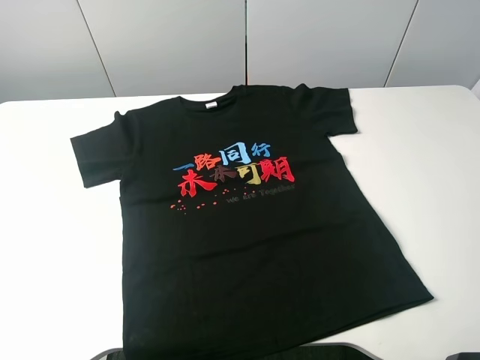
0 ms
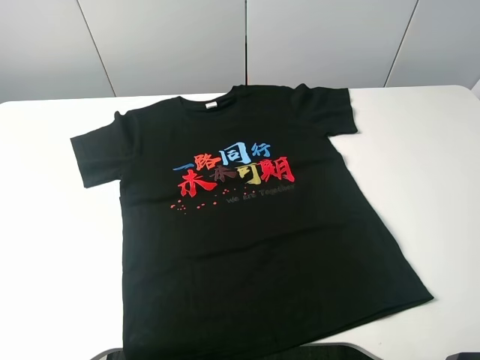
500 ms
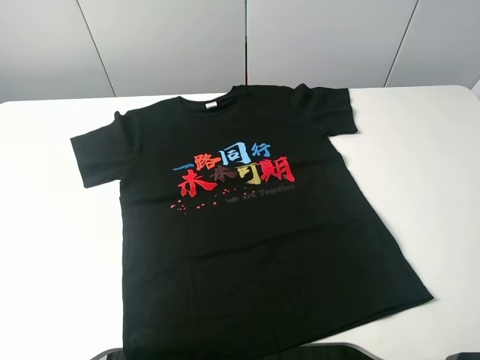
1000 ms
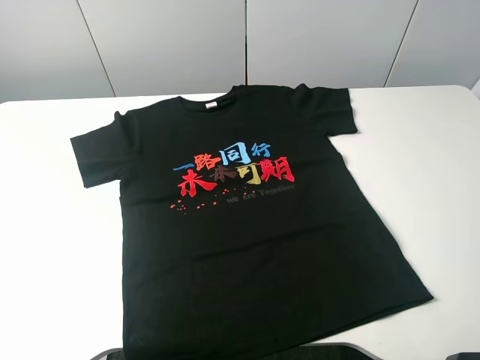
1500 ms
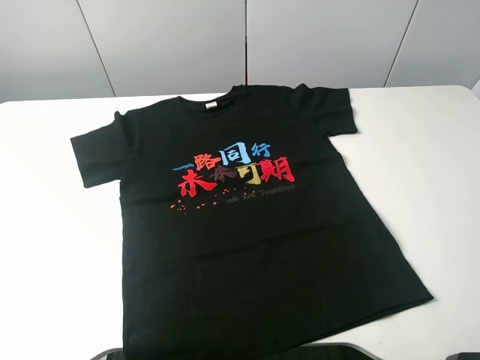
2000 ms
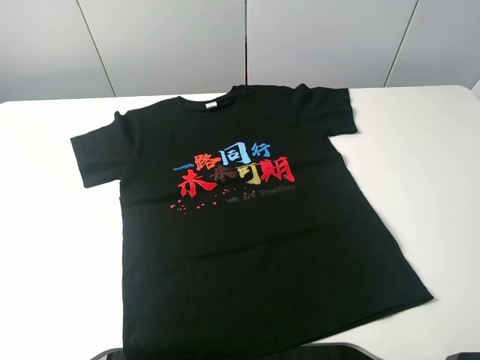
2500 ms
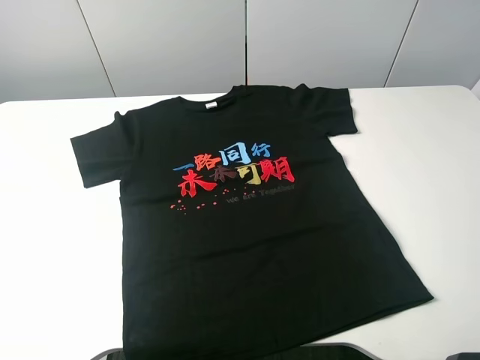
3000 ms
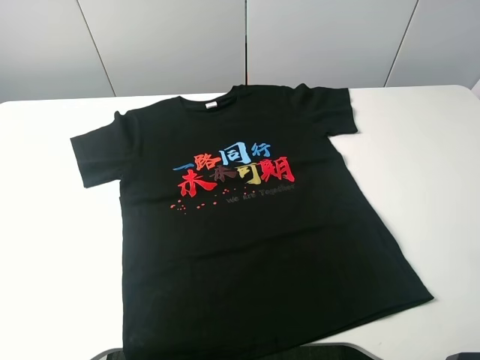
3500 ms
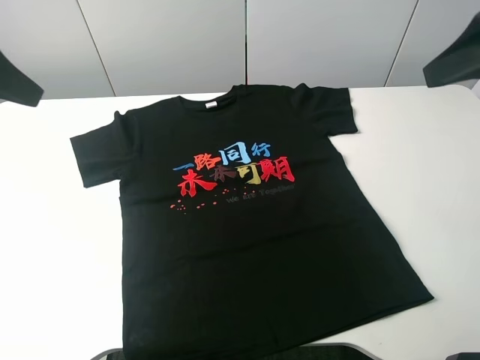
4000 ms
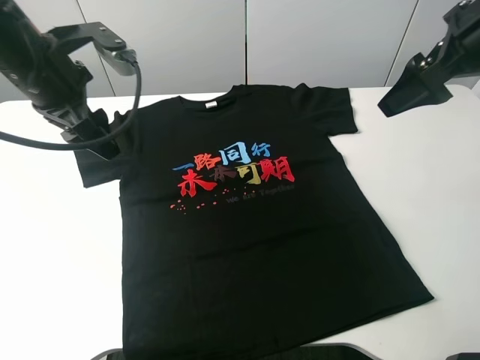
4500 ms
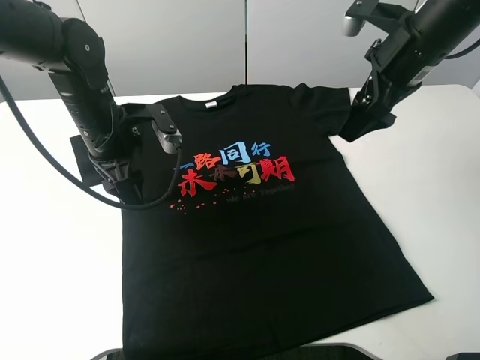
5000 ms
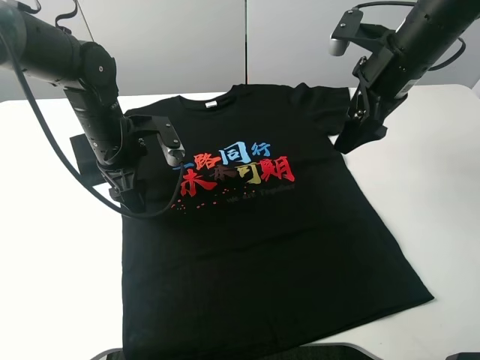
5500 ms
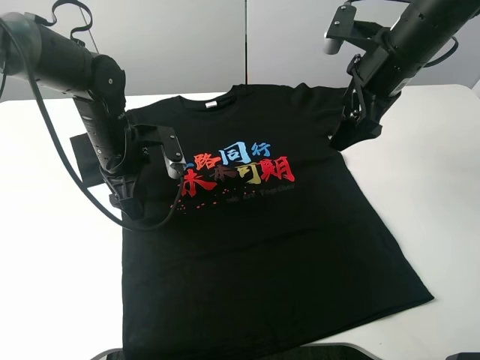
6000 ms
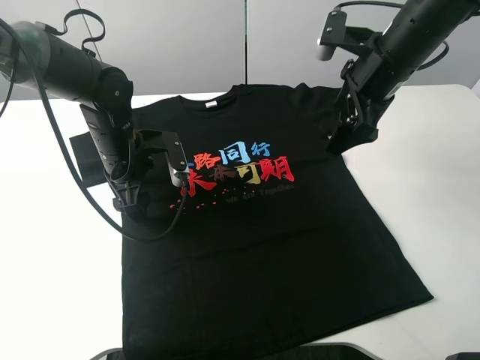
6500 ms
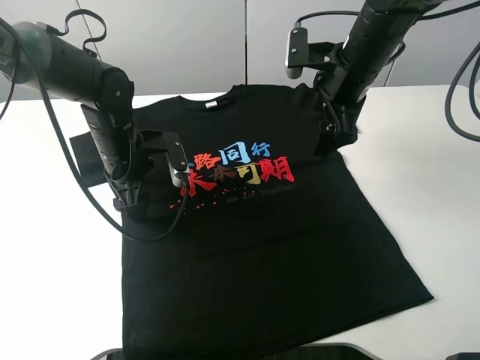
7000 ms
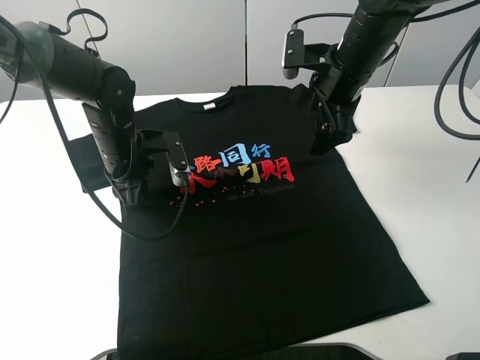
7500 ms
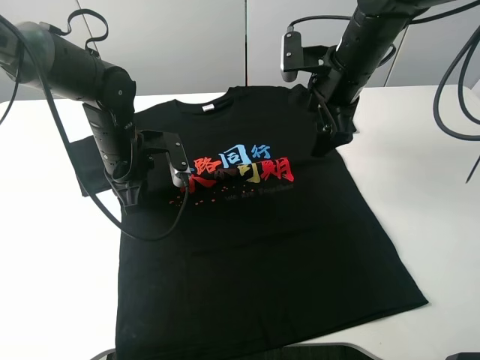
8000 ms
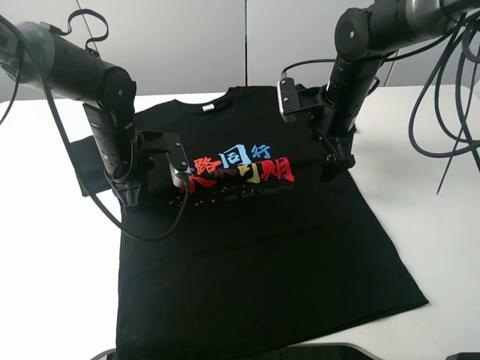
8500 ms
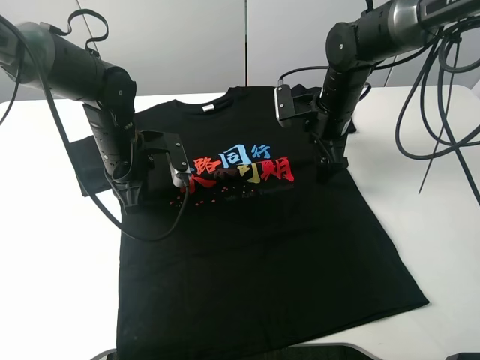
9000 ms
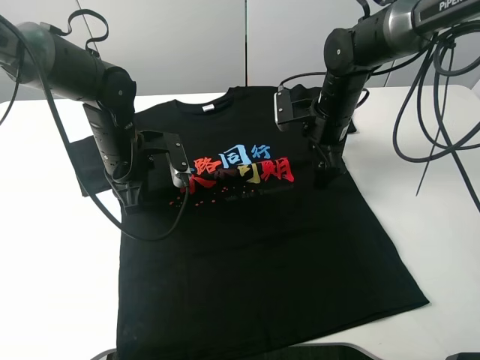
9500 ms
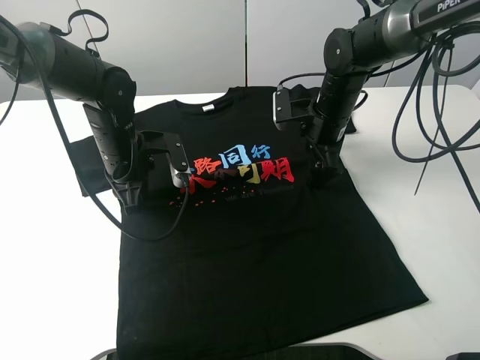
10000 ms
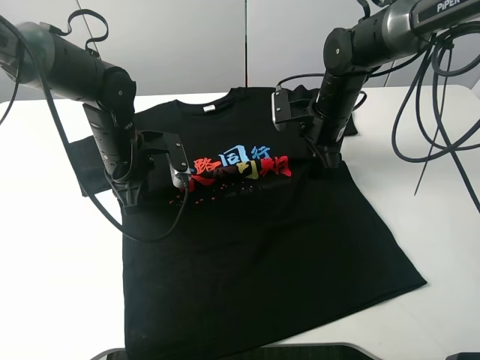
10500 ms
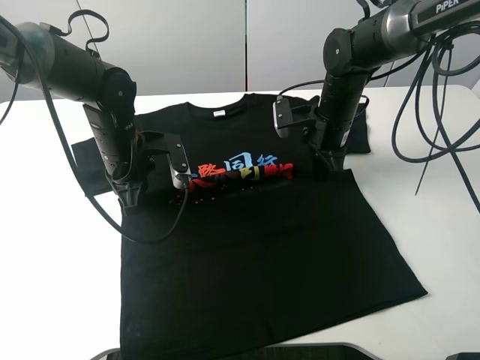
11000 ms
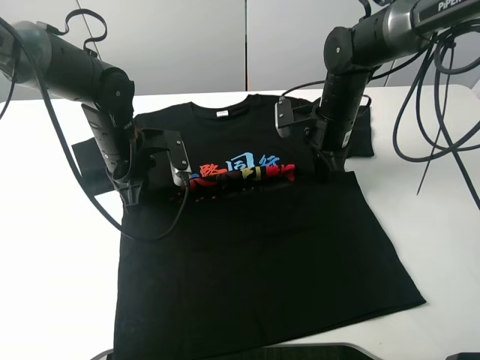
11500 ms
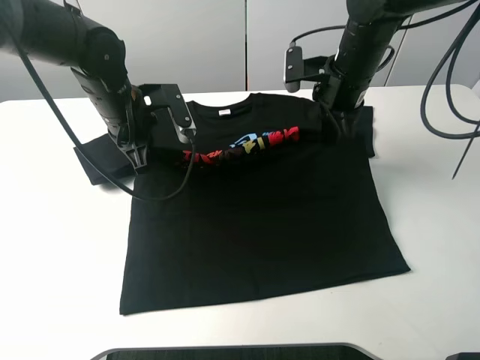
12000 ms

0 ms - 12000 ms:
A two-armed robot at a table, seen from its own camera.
Task of the whole recording: fold the clothes on the table.
Step, 0 ms - 10500 ms: Lift the black T-shirt with the left gripper.
0 ms - 2000 ms: Both grippers stay put.
2000 ms - 4000 ms: The grippers both shift forward by approximately 25 cm.
4000 ms - 6000 ms: The left gripper is displaced downward and to the right by roughly 25 cm. Meanwhile the right gripper goes some 20 cm forward, downward and to the left.
6000 ms - 8000 ms: The left gripper closes its fingers; the right gripper ends up approximately 5 cm from where it was.
8000 ms - 10000 ms: The right gripper heads downward, covering approximately 10 cm.
10000 ms - 12000 ms: Both grippers travel together upward, roughly 10 cm. The right gripper closes up.

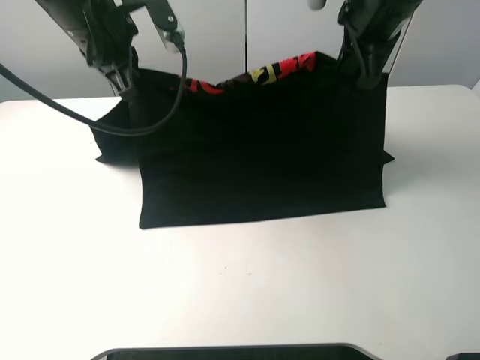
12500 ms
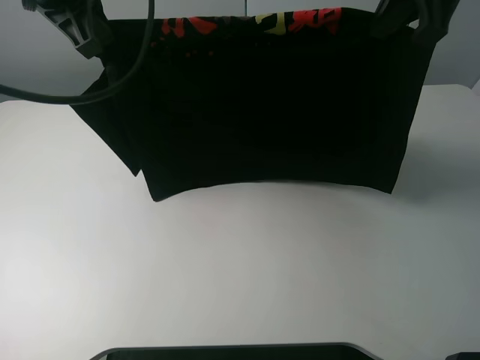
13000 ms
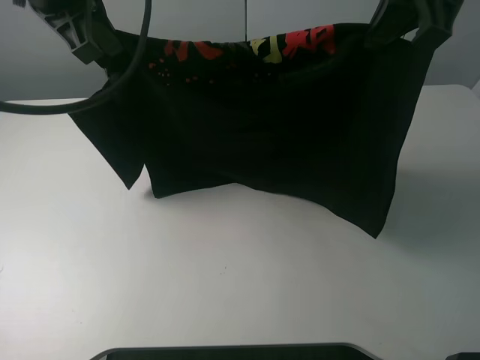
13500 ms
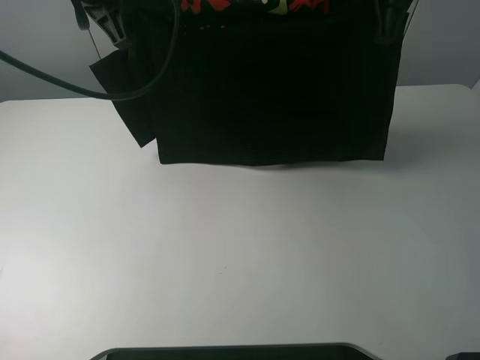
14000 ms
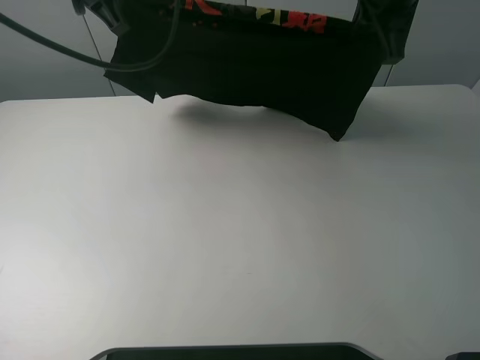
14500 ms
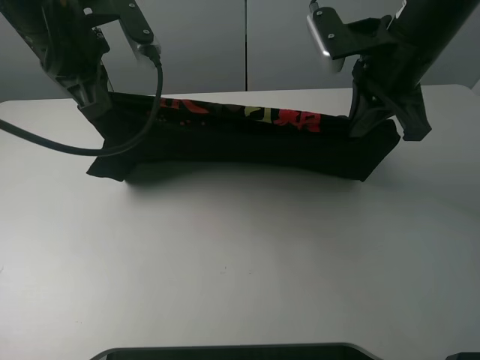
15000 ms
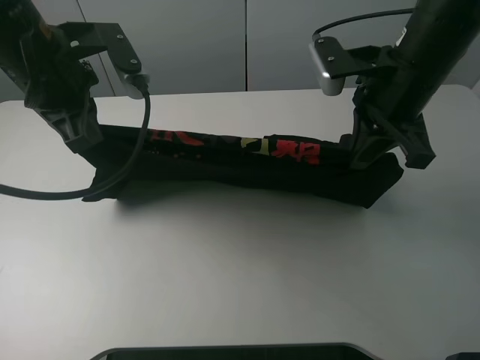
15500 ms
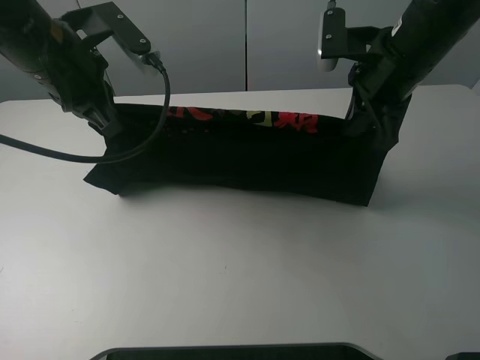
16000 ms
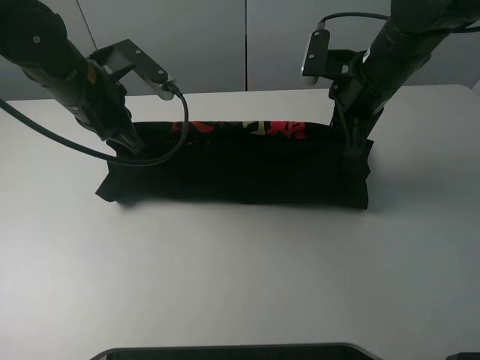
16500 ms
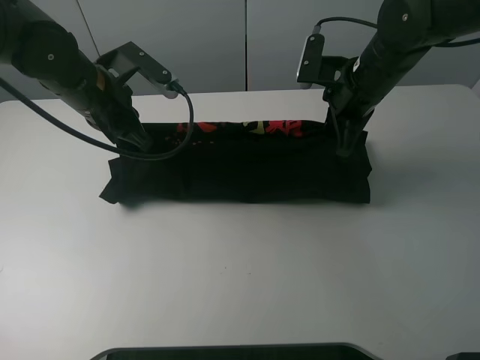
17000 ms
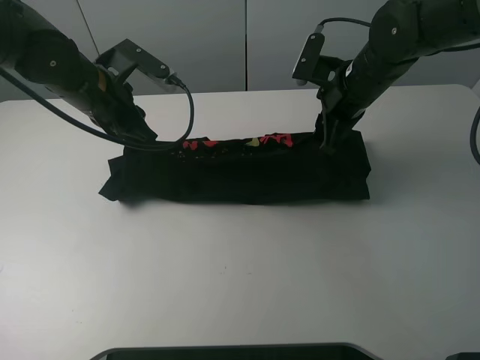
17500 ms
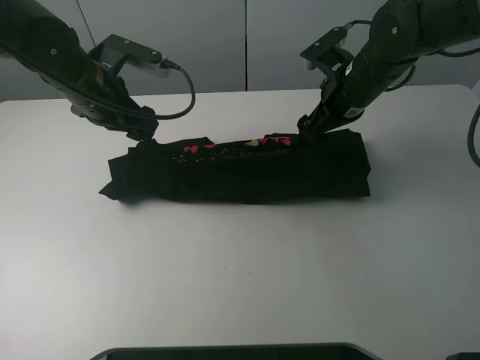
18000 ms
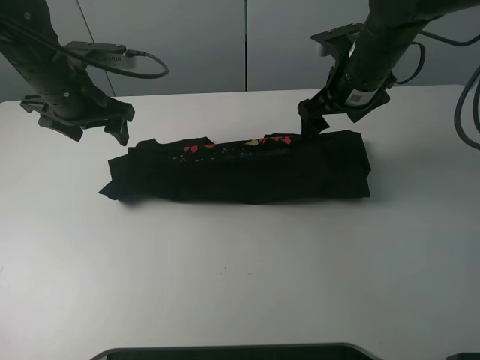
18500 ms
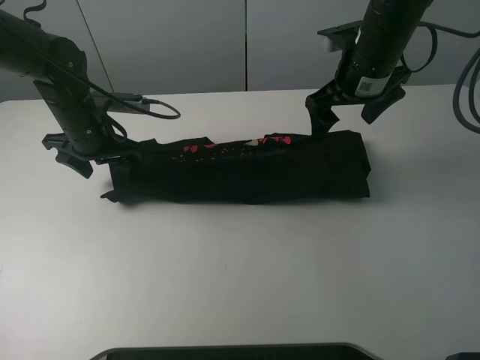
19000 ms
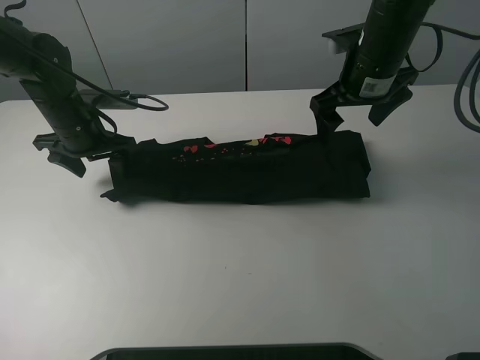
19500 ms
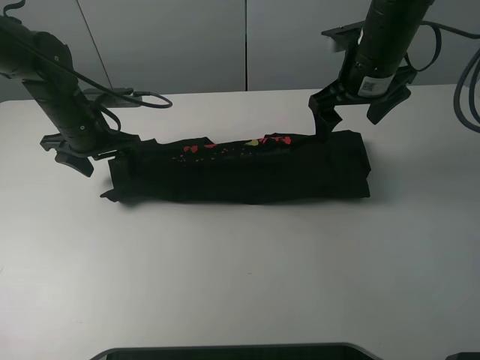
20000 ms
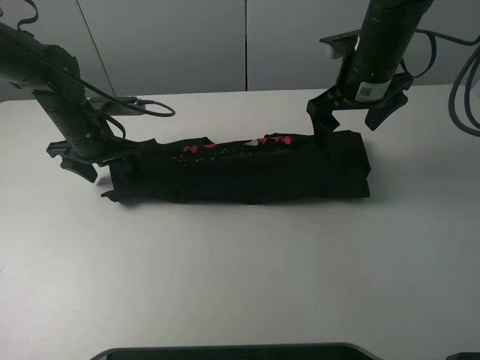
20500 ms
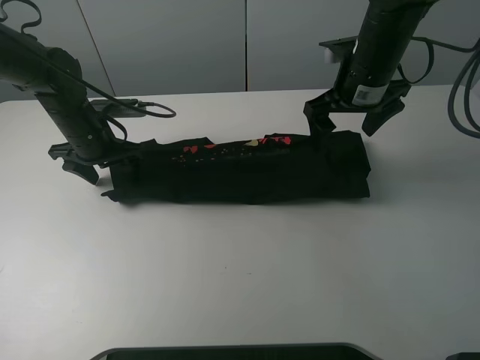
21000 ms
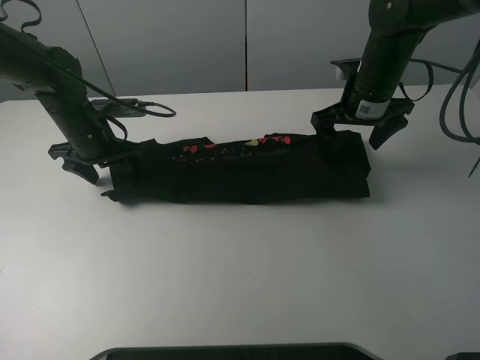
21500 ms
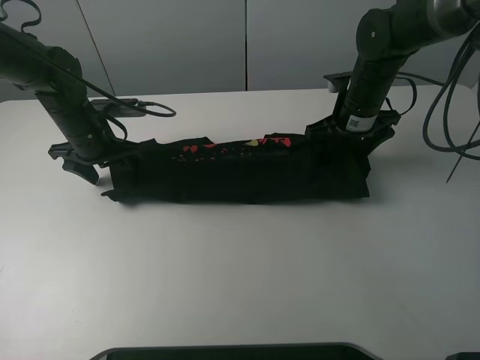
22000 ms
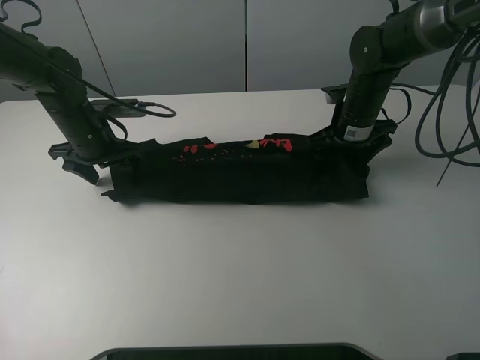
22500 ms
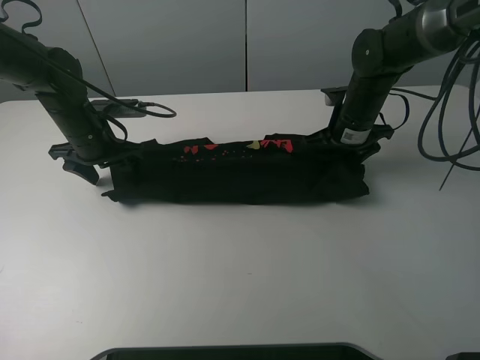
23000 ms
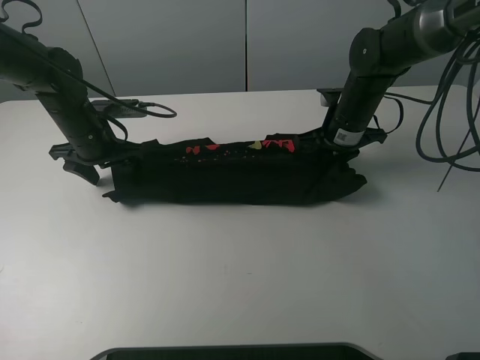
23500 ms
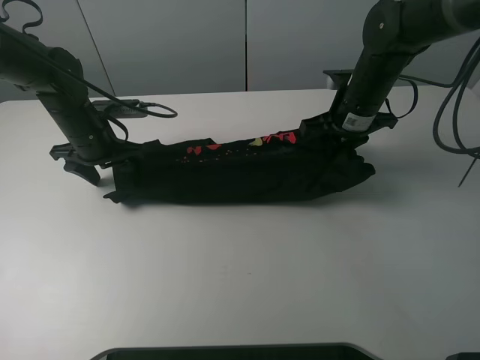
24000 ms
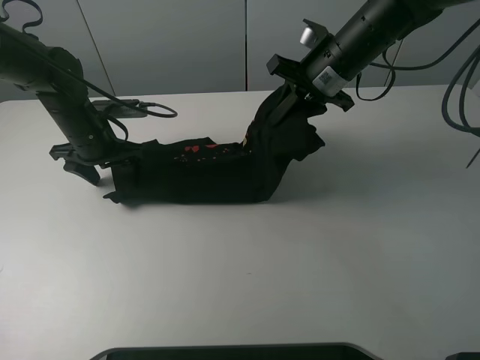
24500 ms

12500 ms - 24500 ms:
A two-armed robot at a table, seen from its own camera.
Task of the whole recording: fold the clothes on the table.
Step, 12500 ms - 17000 ms: Fold the black T-shirt downward with the left gripper.
Step, 18000 ms - 23000 ms: Grasp the black T-shirt with the right gripper.
12500 ms - 14500 ms: The right gripper reaches roughly 5 cm backward, then returns.
14500 ms - 16500 ms: Both grippers travel together downward, roughly 10 cm.
16500 ms - 18500 ms: The right gripper opens its fingers, while the left gripper moves about 5 cm, and opens.
18500 ms - 20500 ms: The left gripper moves downward, roughly 10 cm.
20500 ms - 22500 ms: The right gripper shifts about 10 cm downward.
22500 ms - 24500 ms: The right gripper heads upward and to the left, covering approximately 10 cm, and closes its fingers.

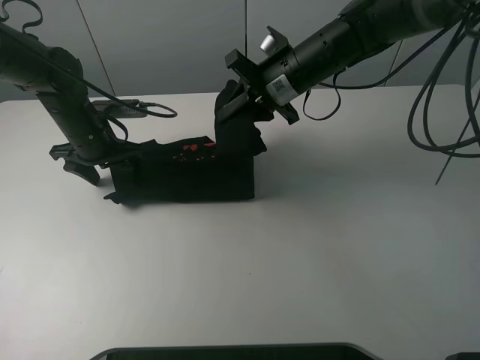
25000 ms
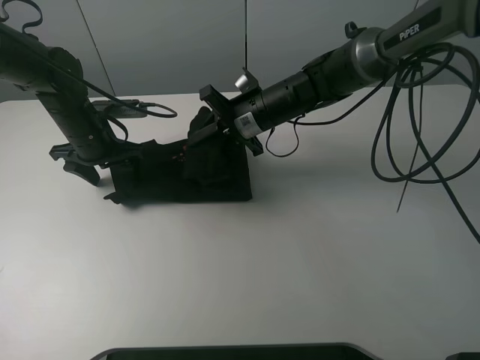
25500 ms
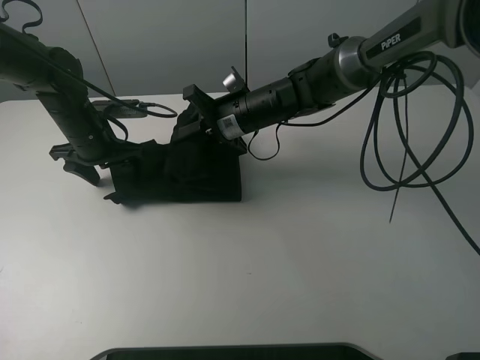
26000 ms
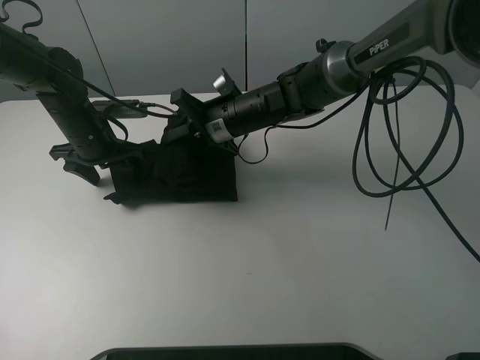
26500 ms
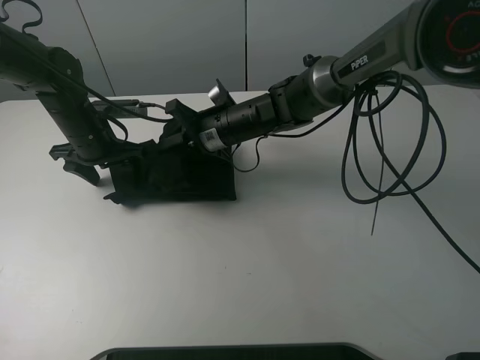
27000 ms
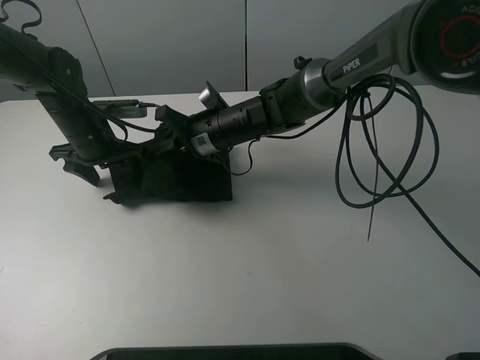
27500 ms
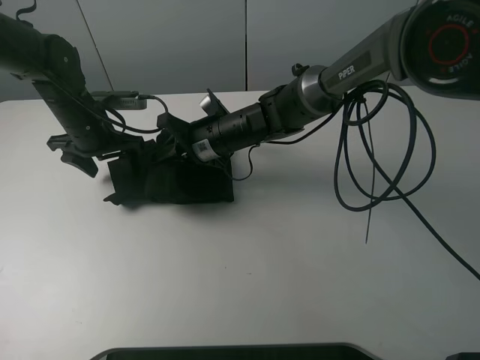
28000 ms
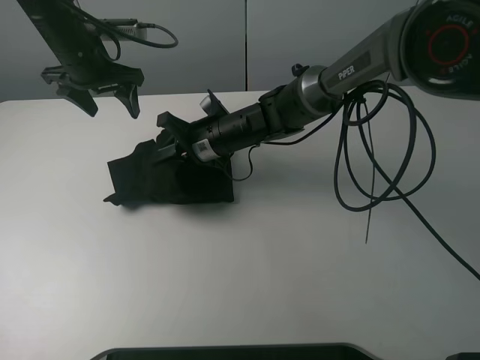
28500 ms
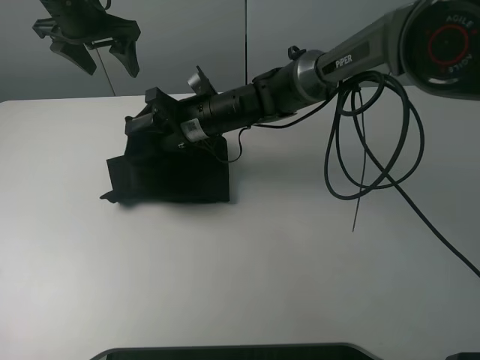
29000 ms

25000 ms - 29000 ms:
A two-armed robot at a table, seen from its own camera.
Task of the whole recording: fold the clothes on the table.
25000 ms - 27000 ms: The right gripper heads to the left and downward, covering approximately 10 cm.
27000 ms - 29000 ms: The left gripper shifts approximately 20 cm upward and forward; the right gripper opens.
